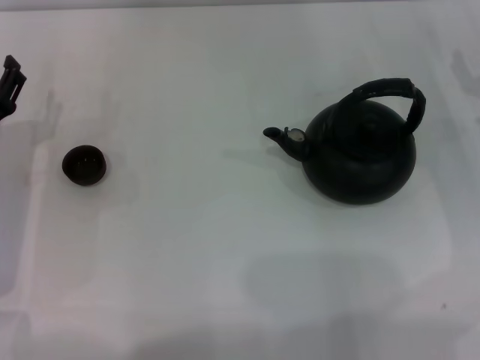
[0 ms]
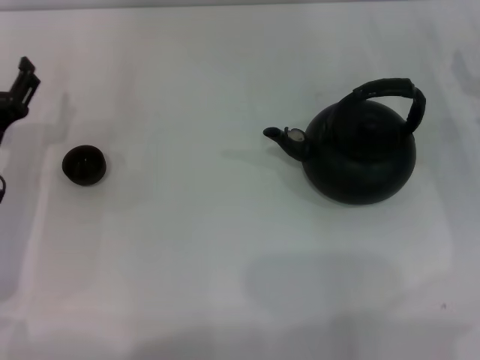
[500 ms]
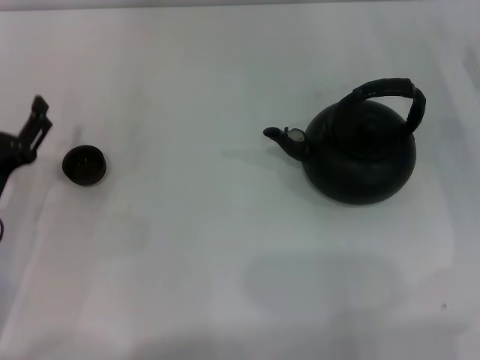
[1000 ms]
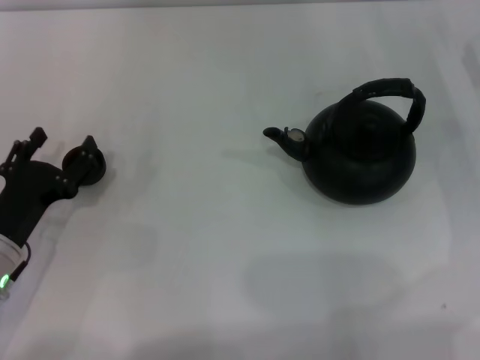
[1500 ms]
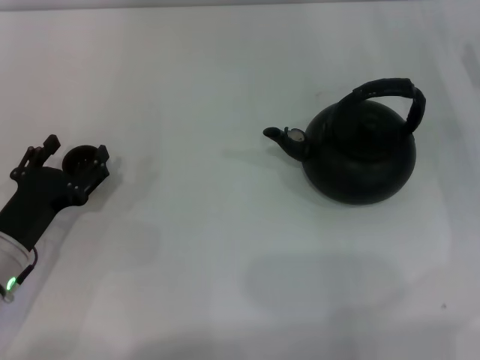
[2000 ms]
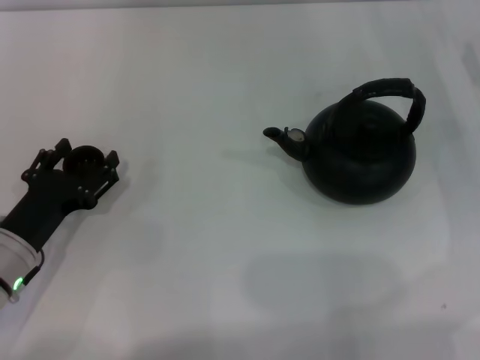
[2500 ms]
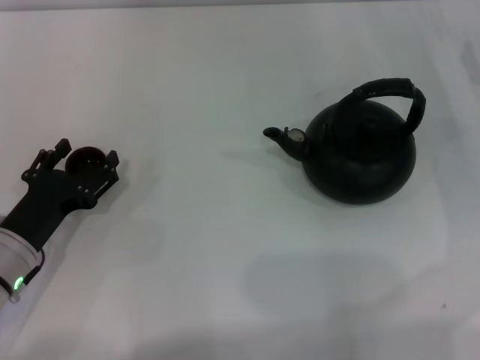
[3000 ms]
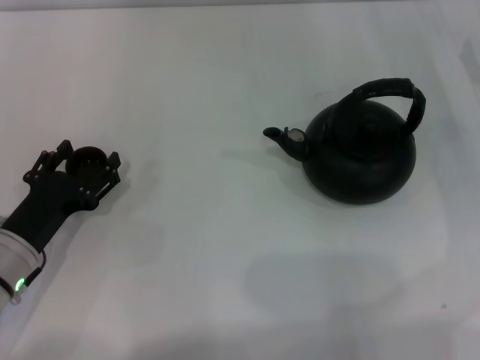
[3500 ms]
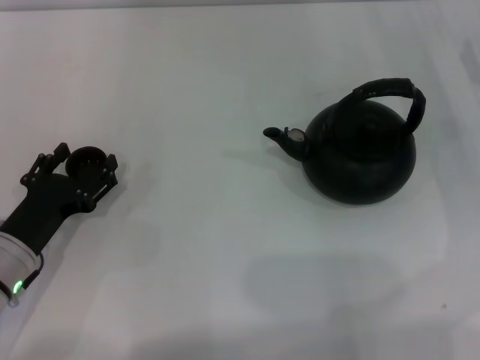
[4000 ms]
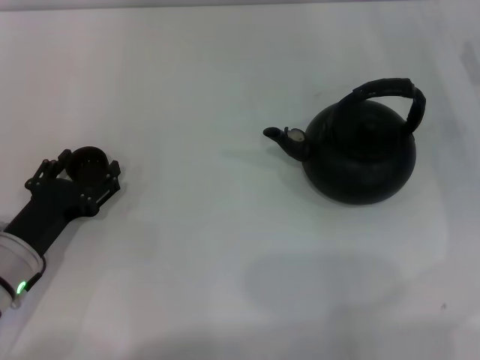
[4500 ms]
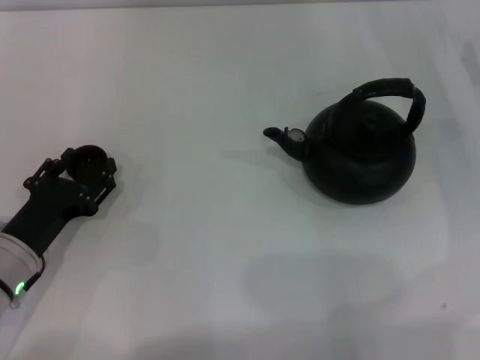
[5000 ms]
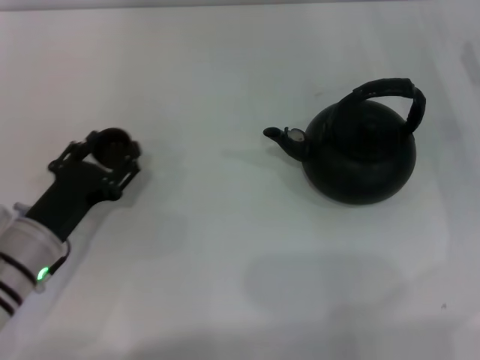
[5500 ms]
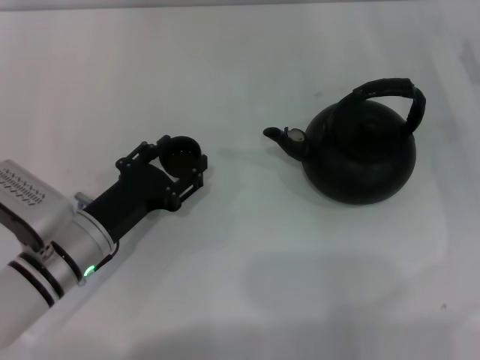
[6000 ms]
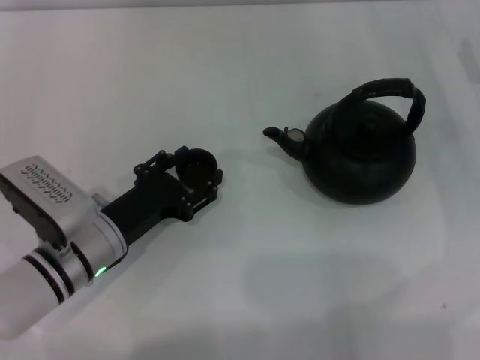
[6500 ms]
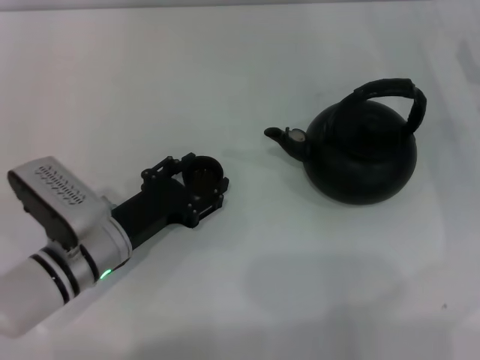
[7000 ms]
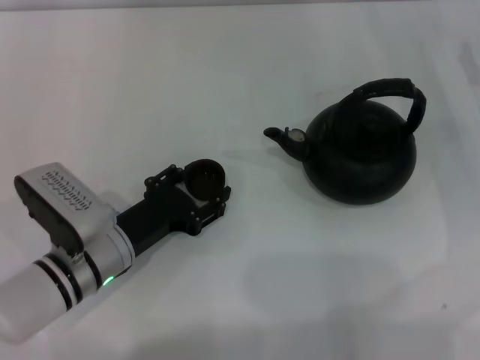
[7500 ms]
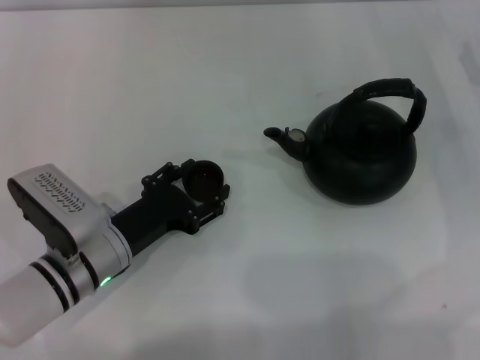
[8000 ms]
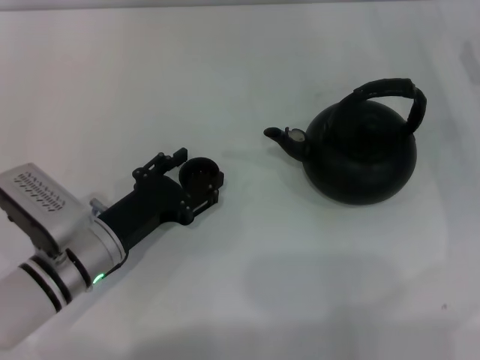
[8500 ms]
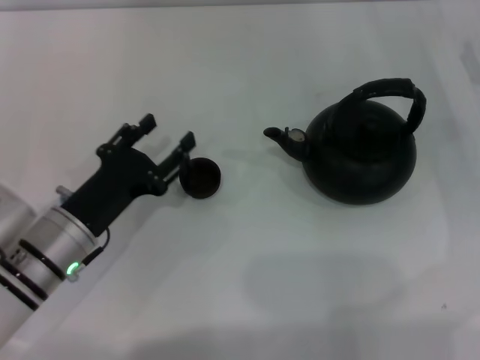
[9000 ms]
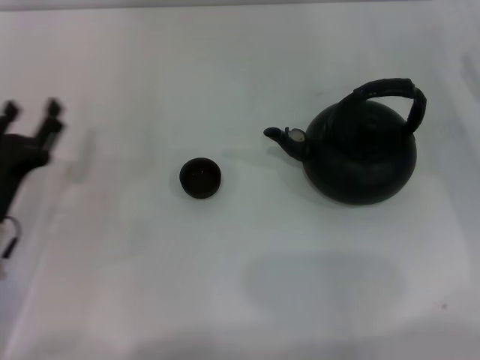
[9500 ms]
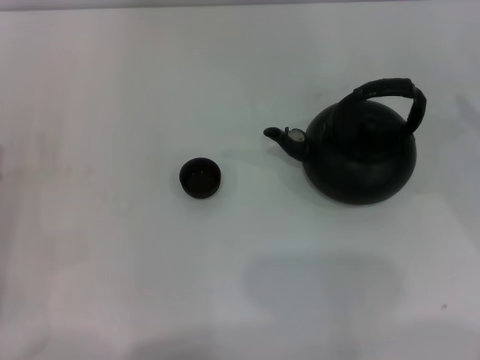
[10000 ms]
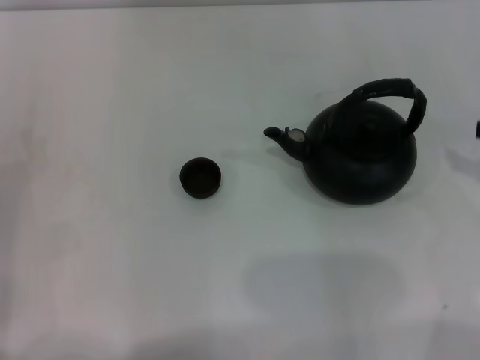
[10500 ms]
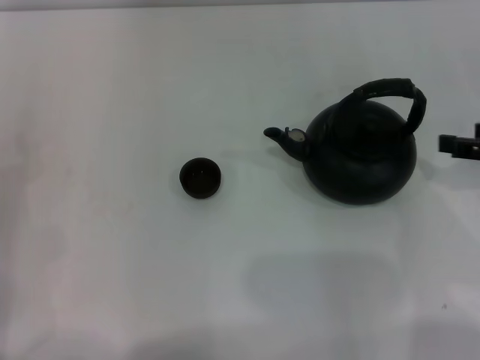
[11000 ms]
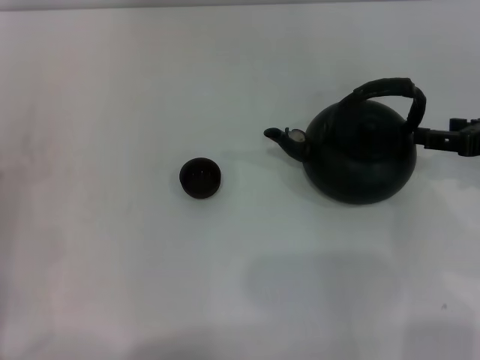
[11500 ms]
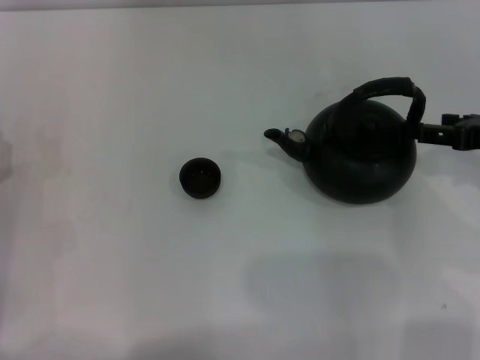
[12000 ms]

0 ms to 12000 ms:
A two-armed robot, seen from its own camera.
Task of the whole recording: Grasp the handle of the teapot with one hand and pour tea into the teacup.
Step, 0 ms to 5500 ms: Pick up the teacup with the left gripper.
Step, 6000 ms to 8500 ms: Place the teacup in the center of view with the left gripper.
0 ms to 2000 ms: The left gripper moves backward, about 5 cm.
2000 ms to 4000 ms: Neither gripper changes place.
4000 ms to 6000 ms: The left gripper shifts approximately 5 cm to the right, and closes up.
6000 ms to 8000 ms: There are only small adjustments of the grippers.
8000 ms to 10000 ms: The right gripper is displaced backward by about 5 cm. Meanwhile the left gripper shifts some 15 cm to the left.
10000 ms to 12000 ms: The right gripper is displaced to the left by about 5 cm.

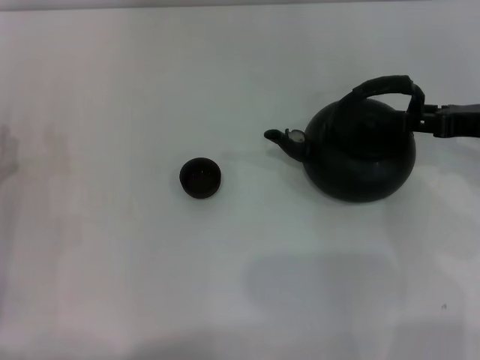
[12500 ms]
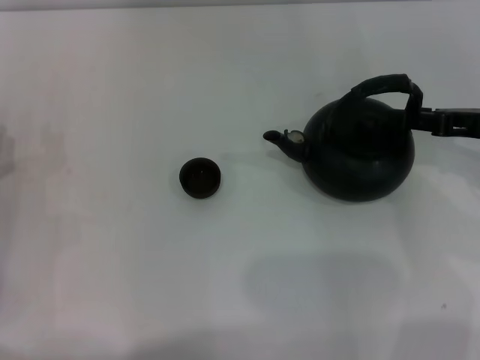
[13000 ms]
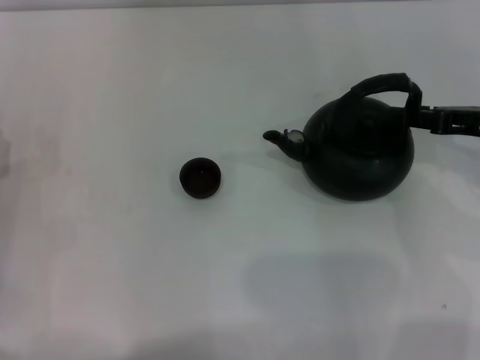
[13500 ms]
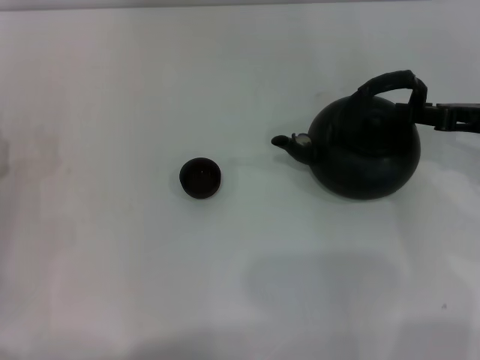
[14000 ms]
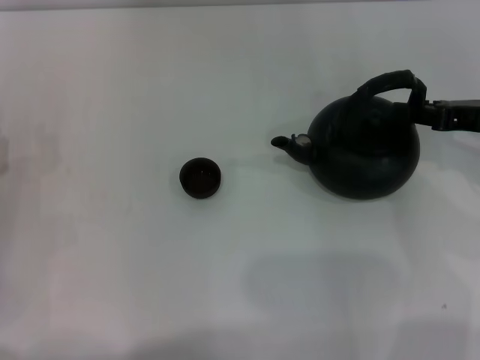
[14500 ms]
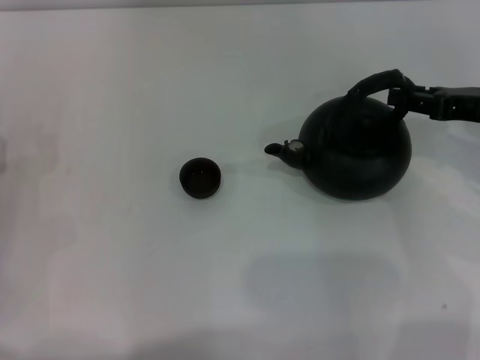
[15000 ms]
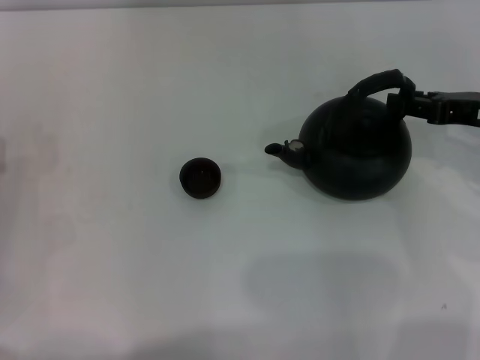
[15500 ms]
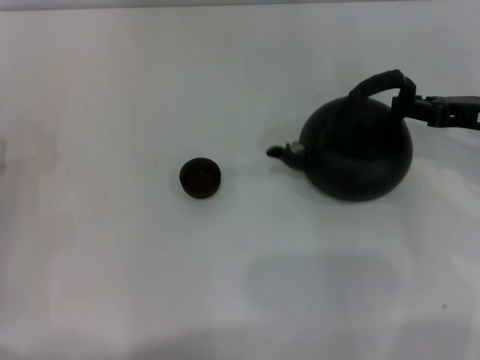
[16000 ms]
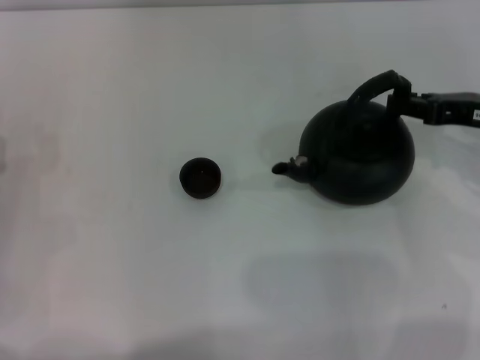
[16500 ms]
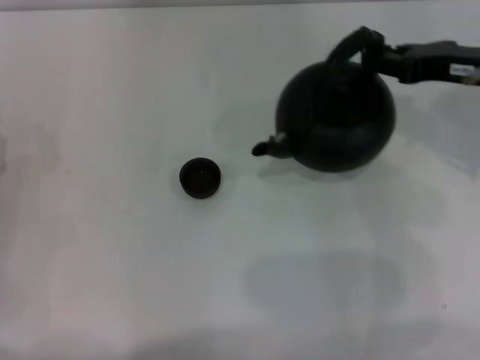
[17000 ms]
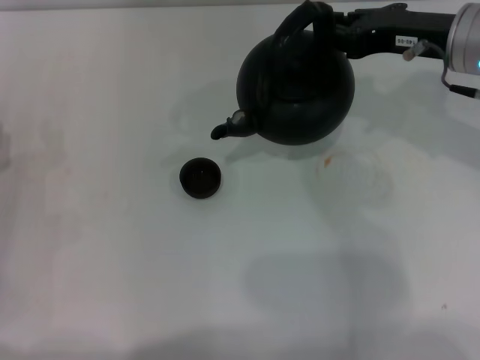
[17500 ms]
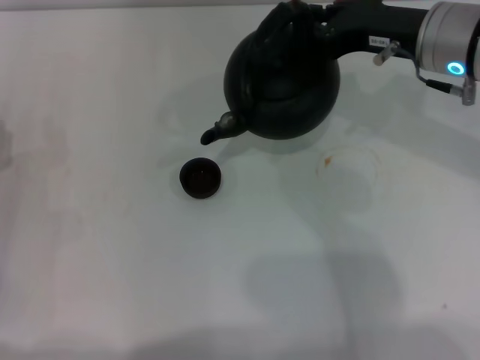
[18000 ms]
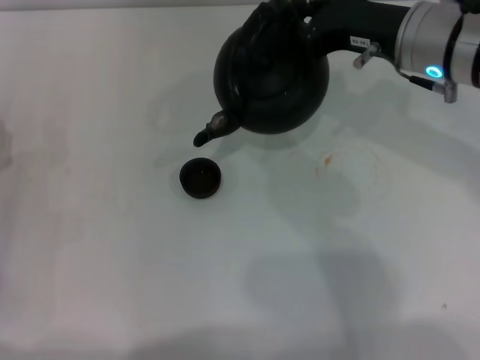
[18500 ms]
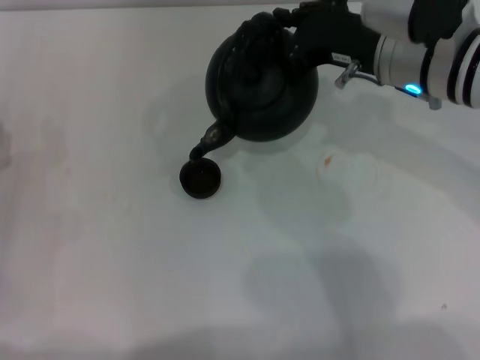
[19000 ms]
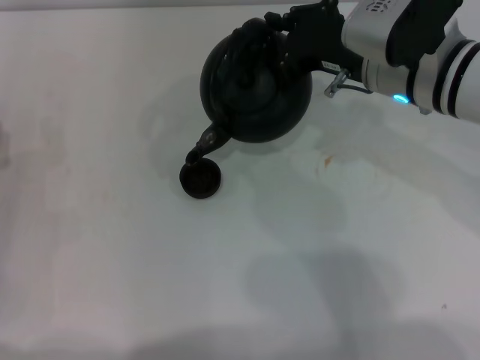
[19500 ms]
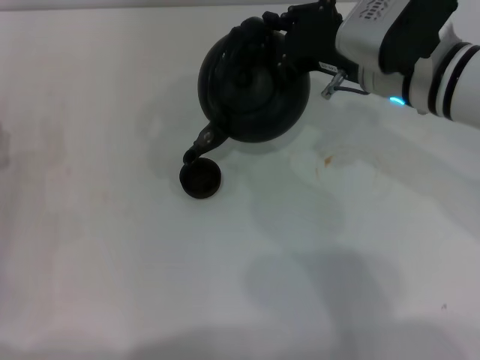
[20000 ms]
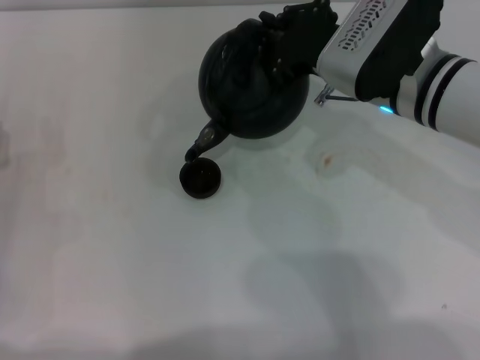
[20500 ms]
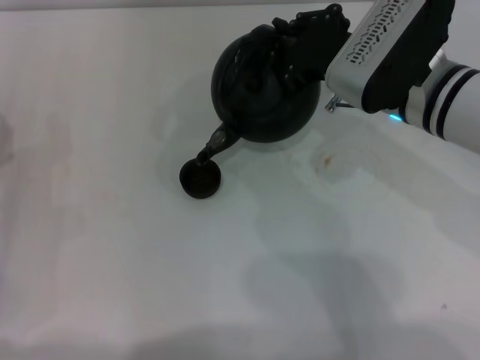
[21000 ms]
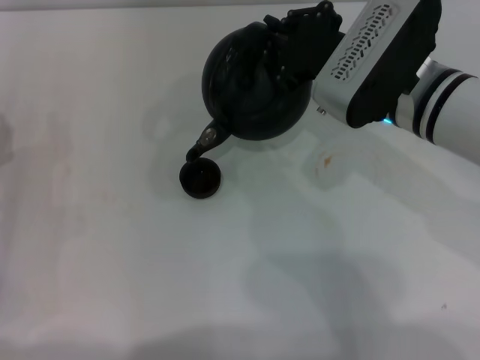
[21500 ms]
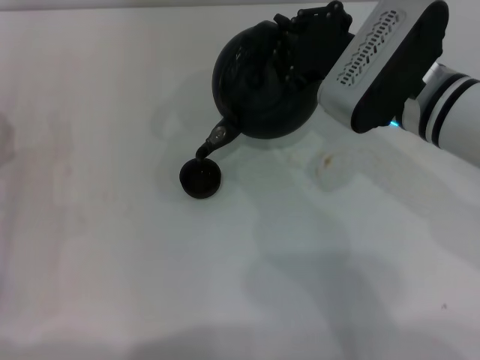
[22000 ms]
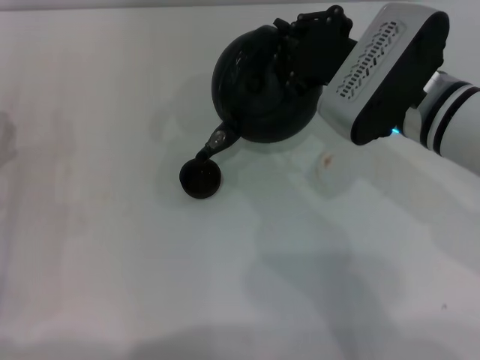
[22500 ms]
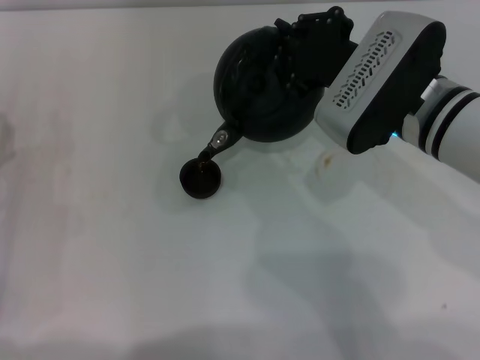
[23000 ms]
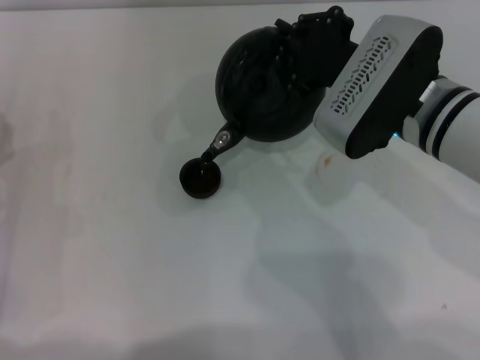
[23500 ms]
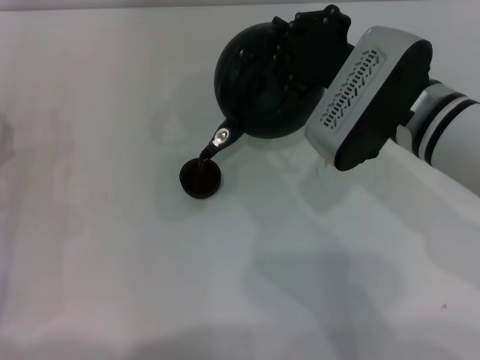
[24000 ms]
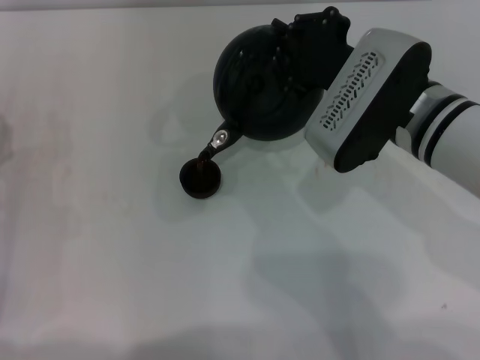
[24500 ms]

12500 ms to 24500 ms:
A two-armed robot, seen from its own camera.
Task of the whole recording: Grasp the handle of the teapot with one hand and pour tea into the teacup.
Step, 12500 ms to 17000 ms: Pick up the teapot with the right gripper.
12500 ms to 14500 ms: The right gripper closes.
14500 ms to 16500 ms: Both grippers stay put.
16500 ms to 18500 ms: The right gripper heads to the left, covering some 15 cm.
20500 ms to 24500 ms: The grippers stay close to where they were, moving slightly.

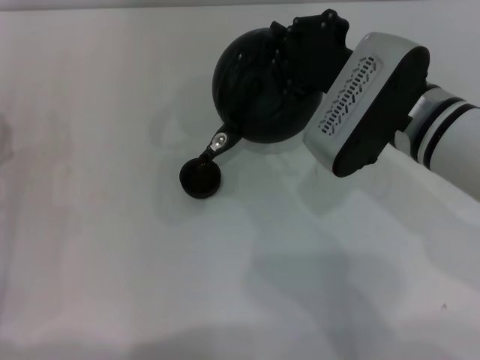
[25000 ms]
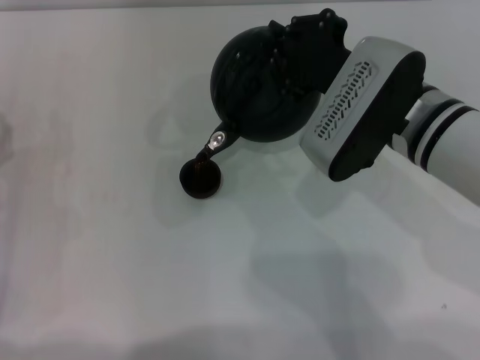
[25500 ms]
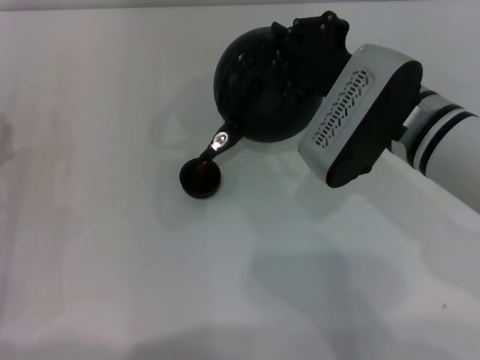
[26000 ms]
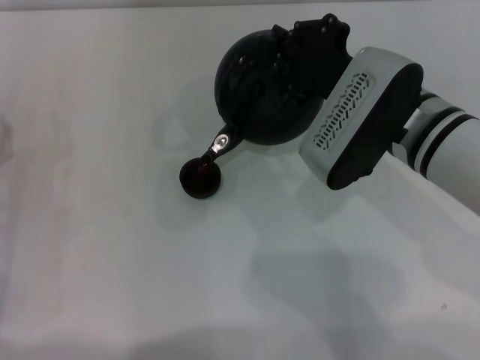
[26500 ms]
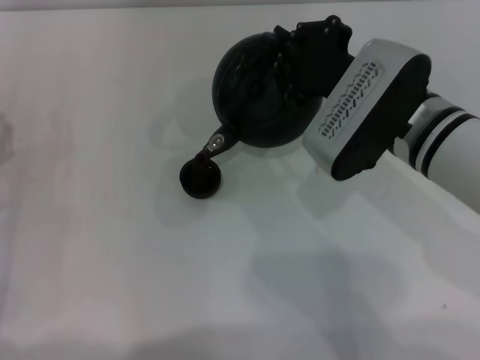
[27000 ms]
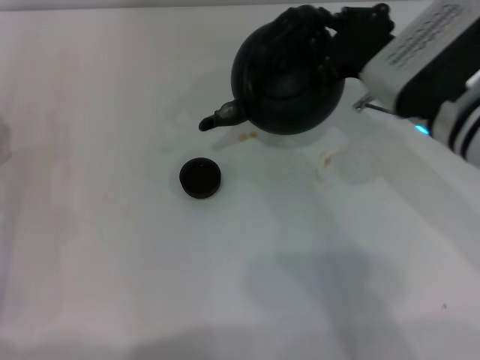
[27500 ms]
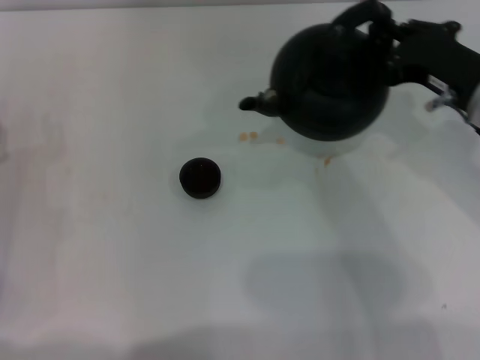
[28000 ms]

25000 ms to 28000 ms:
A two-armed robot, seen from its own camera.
Task of the whole recording: Grasp the handle of the teapot with one hand and pour tea into the teacup.
Step, 25000 ms to 27500 ms: Pour tea into the teacup with the right gripper.
25000 ms to 26500 ms: Both grippers stay about where they are.
26500 ms to 28000 ms: The right gripper travels to the right by some 10 cm.
